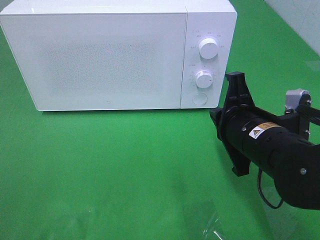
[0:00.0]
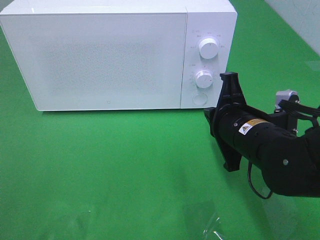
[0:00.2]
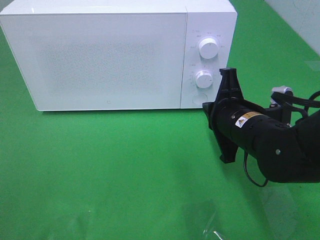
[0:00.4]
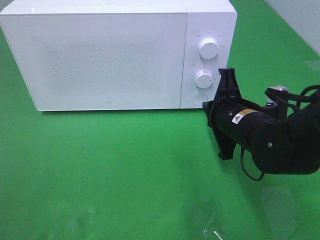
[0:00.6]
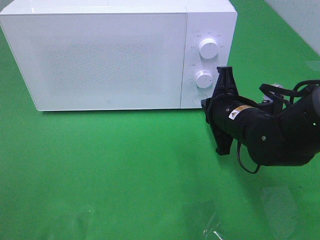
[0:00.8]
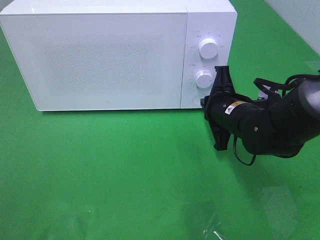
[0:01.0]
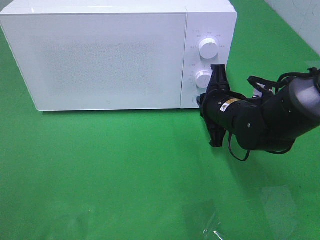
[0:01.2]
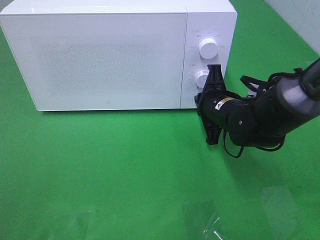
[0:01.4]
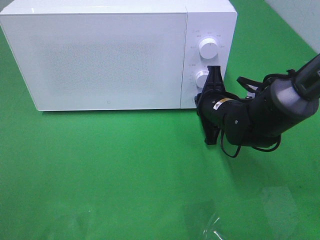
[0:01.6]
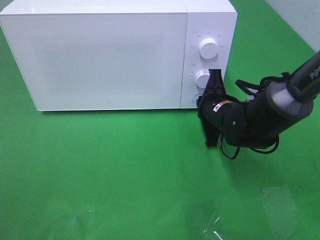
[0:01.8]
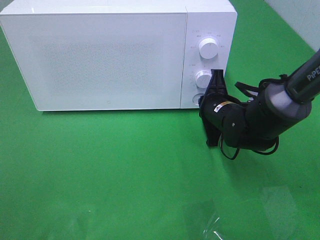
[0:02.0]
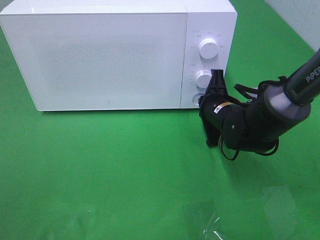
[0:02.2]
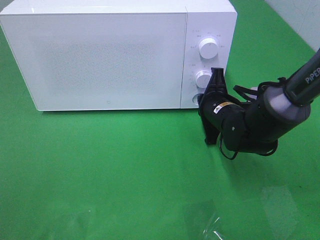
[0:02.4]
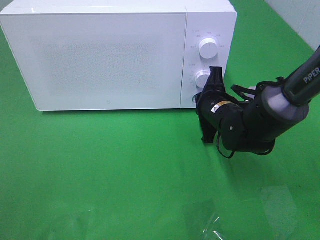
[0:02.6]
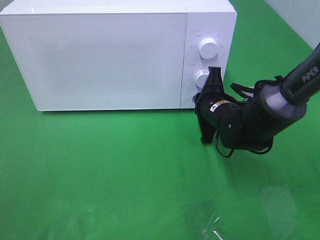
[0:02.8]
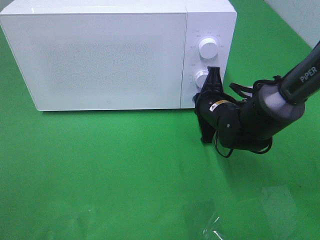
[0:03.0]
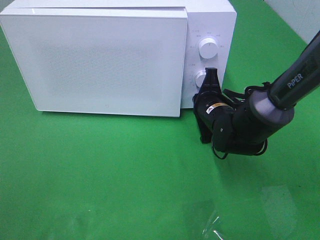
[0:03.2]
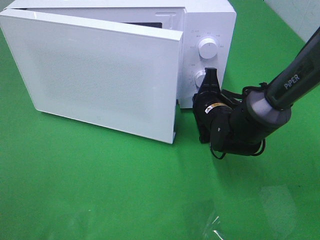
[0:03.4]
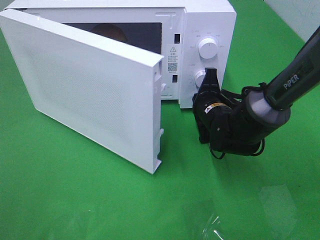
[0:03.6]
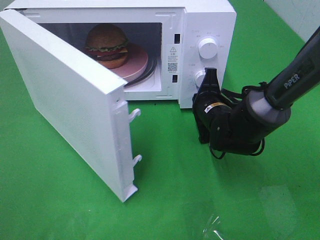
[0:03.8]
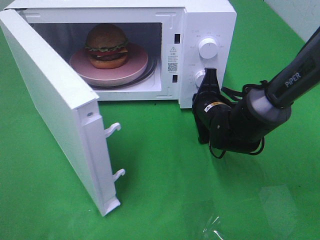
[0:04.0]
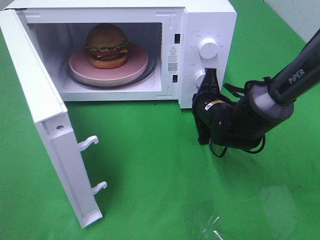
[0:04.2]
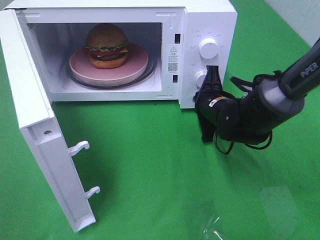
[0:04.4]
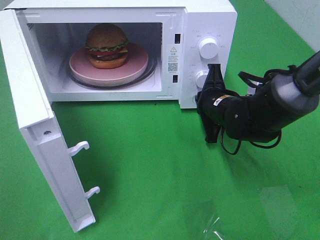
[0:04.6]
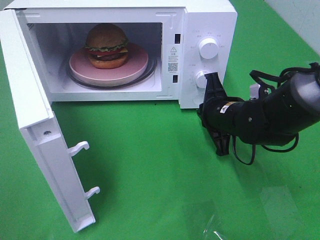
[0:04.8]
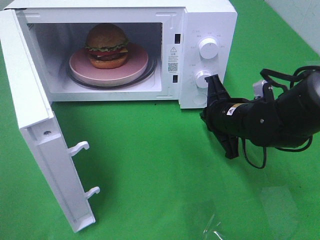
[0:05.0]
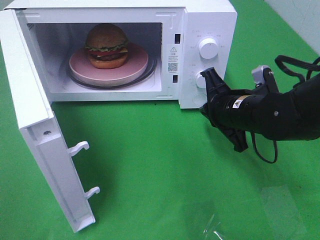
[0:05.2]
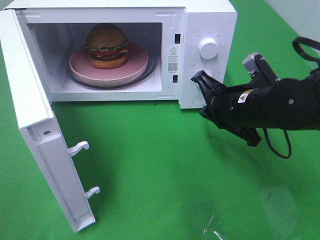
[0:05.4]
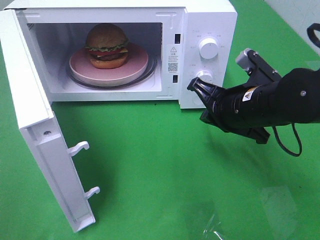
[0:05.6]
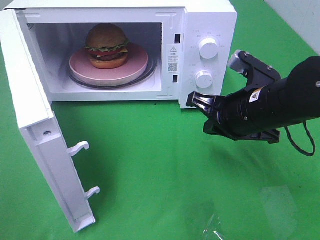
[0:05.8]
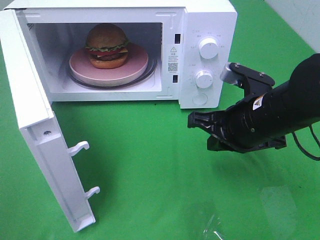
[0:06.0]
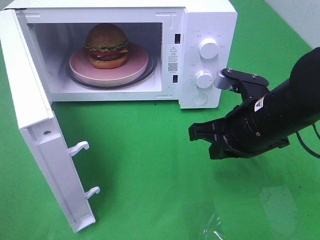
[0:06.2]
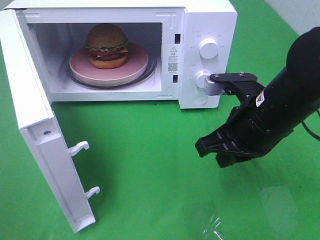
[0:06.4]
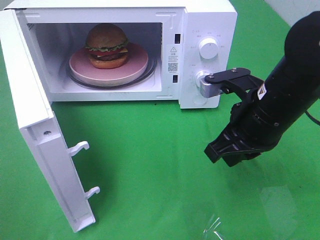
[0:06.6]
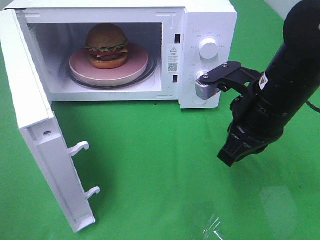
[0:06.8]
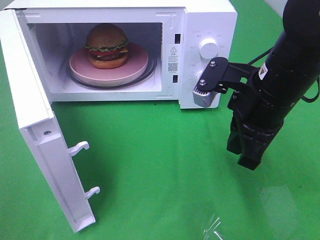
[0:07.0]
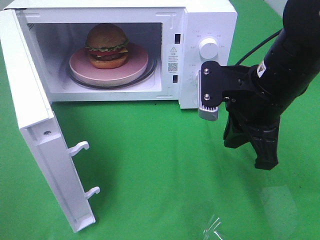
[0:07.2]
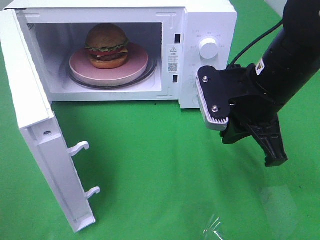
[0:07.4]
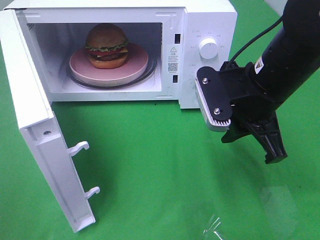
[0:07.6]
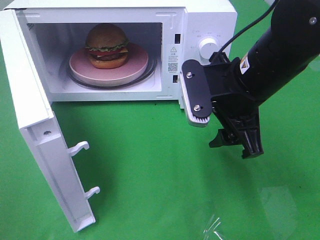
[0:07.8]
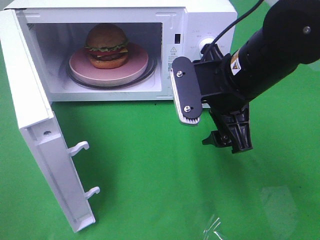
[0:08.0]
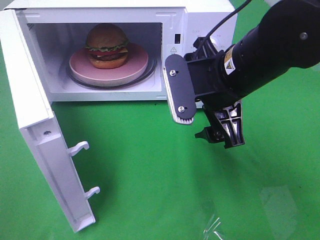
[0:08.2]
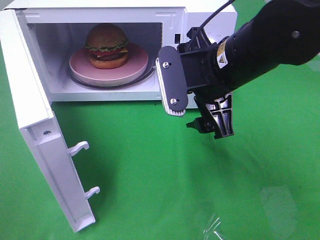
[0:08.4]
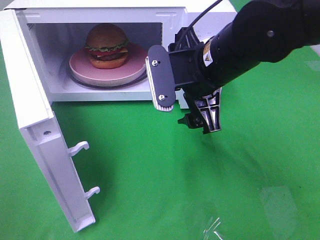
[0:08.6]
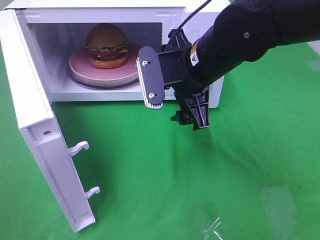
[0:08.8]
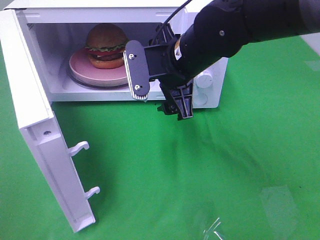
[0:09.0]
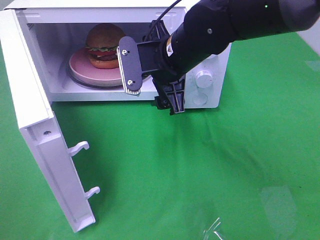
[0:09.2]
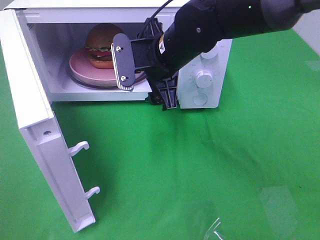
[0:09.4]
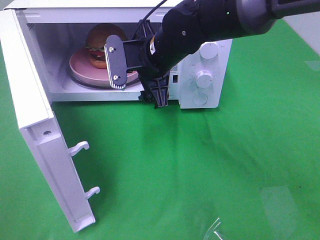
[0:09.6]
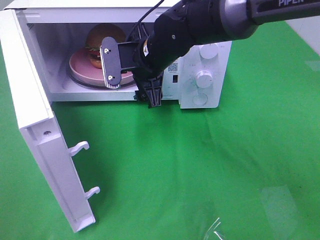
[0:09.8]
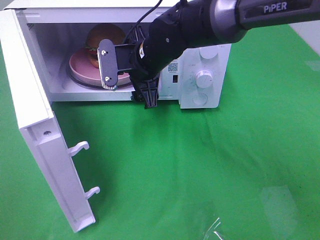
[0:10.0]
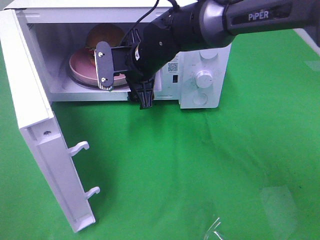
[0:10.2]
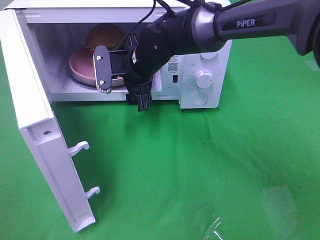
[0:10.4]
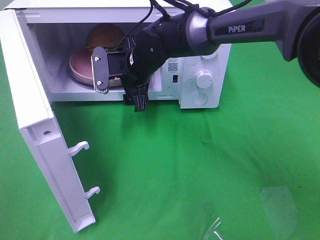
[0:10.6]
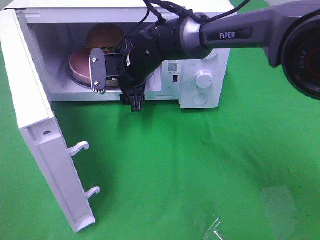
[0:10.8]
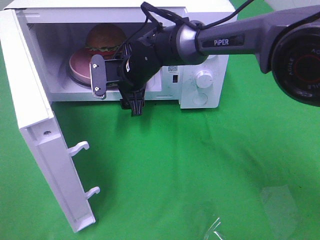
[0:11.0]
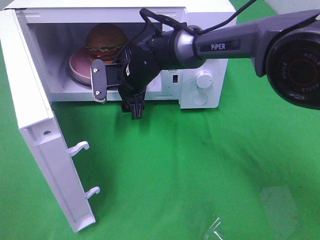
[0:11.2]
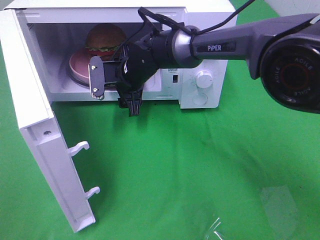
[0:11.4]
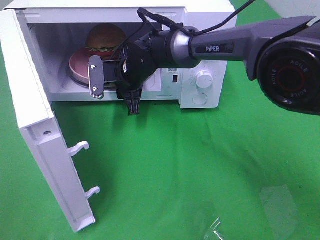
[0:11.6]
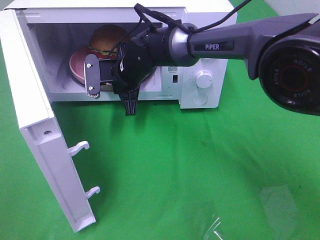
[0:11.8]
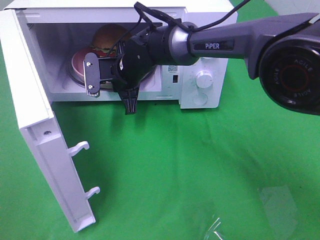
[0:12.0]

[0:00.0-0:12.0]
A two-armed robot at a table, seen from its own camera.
Task of the whole recording: Heat the burger.
Step, 0:00.0 to 0:04.8: Right hand: press the switch.
Step, 0:05.0 to 0:12.0: Right hand: grab the plate with the hamburger.
0:00.0 to 0:01.6: The right gripper travels forward and downward by some 15 cm.
0:01.6 to 0:03.0: The grippers move only a little.
0:04.4 to 0:06.0: The right gripper moves backward and upward, some 15 cm.
0:06.0 to 0:07.6: The right gripper goes about 5 cm upward.
0:07.6 to 0:09.0: The right gripper travels to the left and forward by some 10 cm, and opens up.
0:09.0 to 0:10.4: The right gripper heads forward, to the left and downward, covering roughly 10 cm.
0:10.4 to 0:12.0: The right gripper closes its fingers.

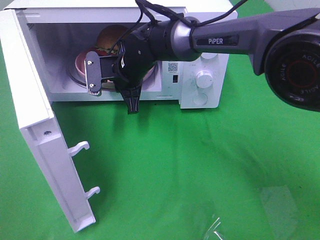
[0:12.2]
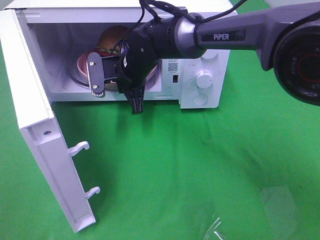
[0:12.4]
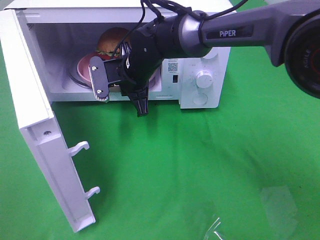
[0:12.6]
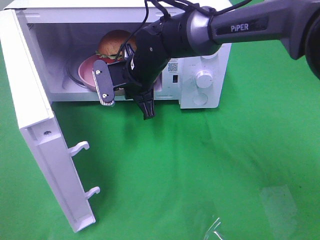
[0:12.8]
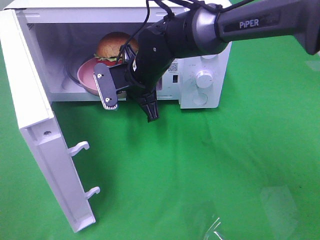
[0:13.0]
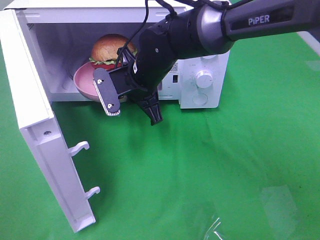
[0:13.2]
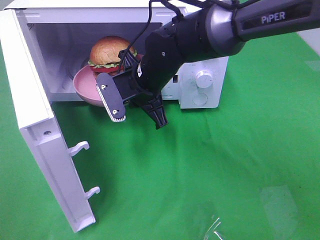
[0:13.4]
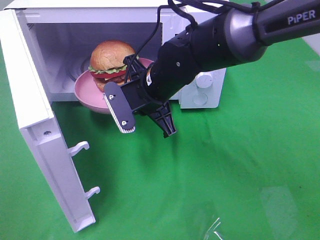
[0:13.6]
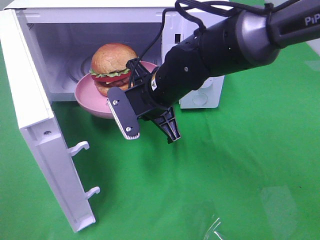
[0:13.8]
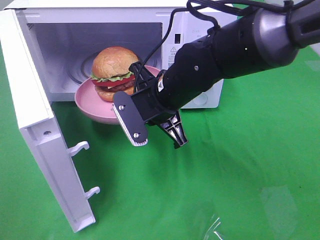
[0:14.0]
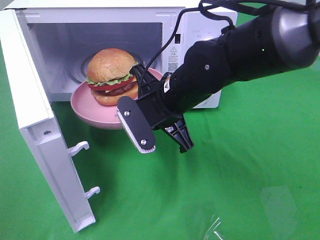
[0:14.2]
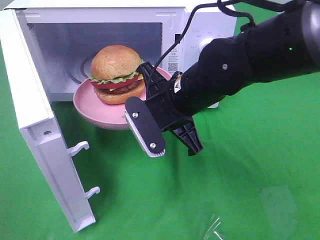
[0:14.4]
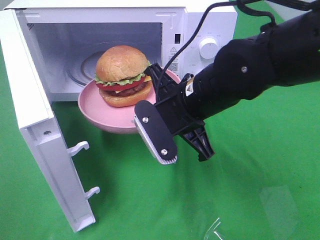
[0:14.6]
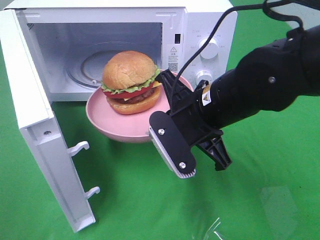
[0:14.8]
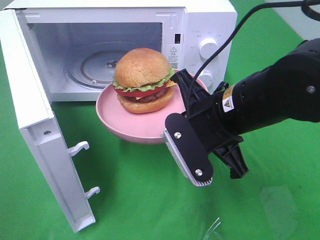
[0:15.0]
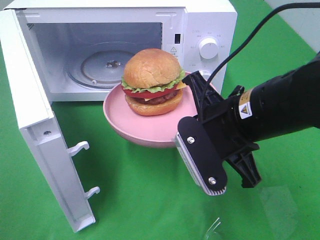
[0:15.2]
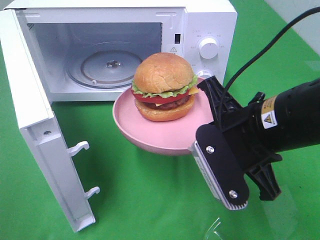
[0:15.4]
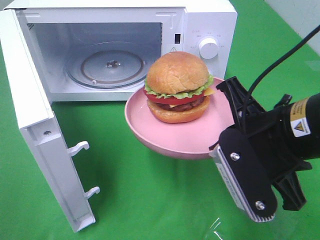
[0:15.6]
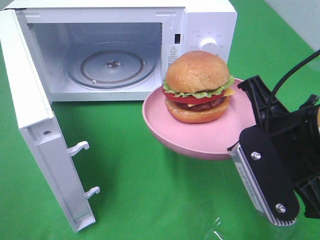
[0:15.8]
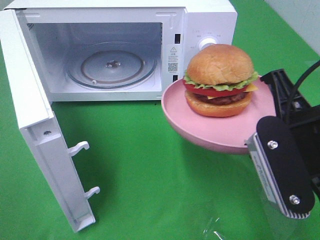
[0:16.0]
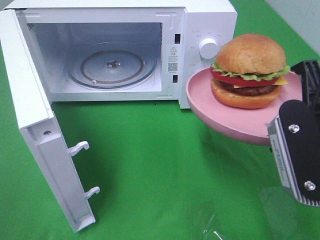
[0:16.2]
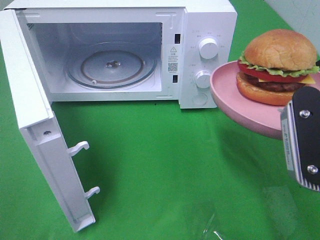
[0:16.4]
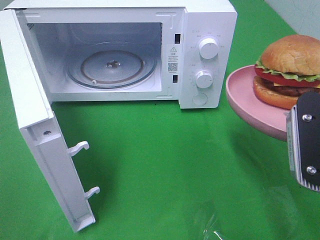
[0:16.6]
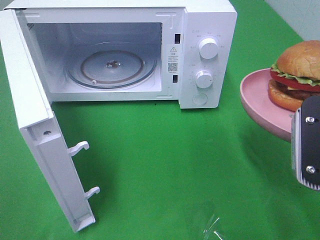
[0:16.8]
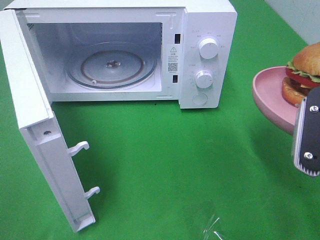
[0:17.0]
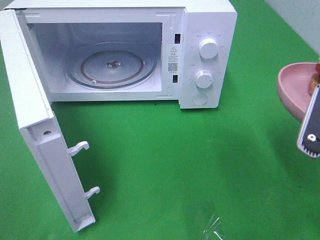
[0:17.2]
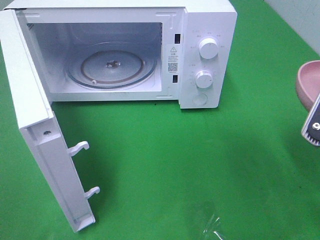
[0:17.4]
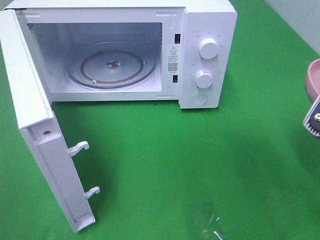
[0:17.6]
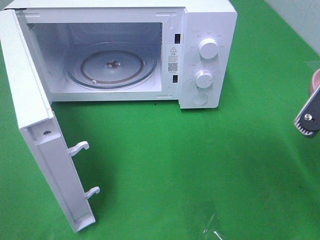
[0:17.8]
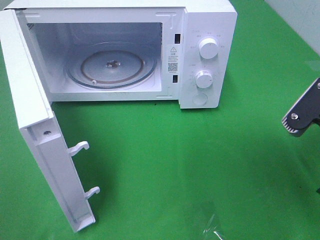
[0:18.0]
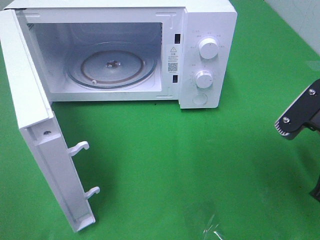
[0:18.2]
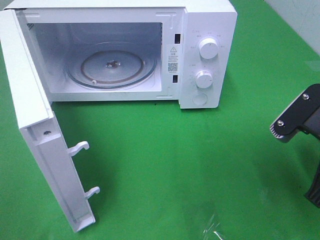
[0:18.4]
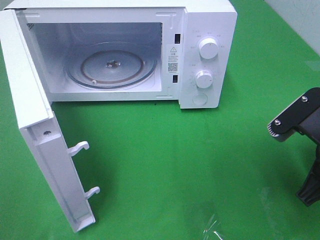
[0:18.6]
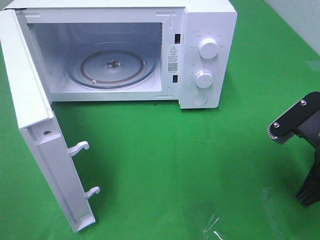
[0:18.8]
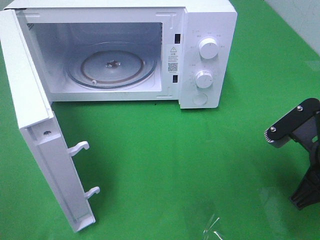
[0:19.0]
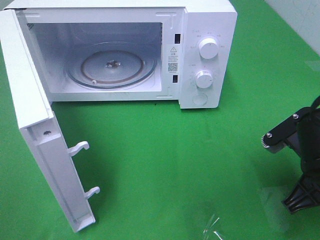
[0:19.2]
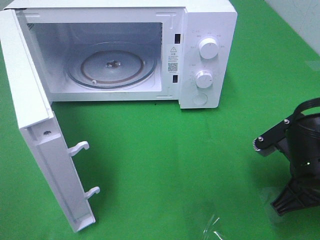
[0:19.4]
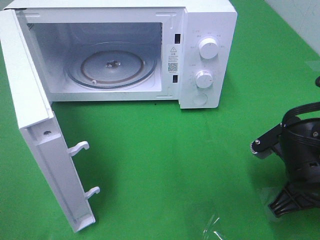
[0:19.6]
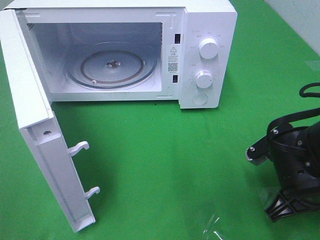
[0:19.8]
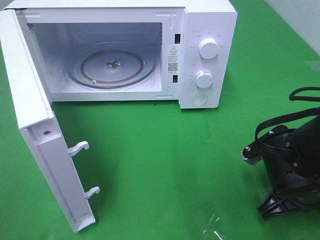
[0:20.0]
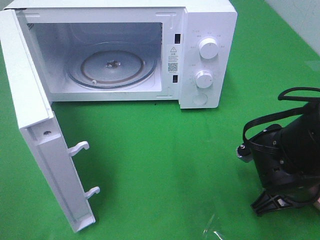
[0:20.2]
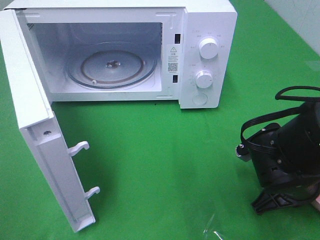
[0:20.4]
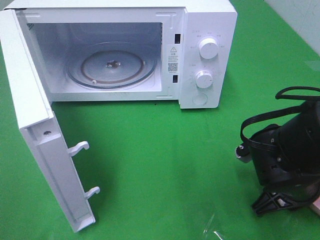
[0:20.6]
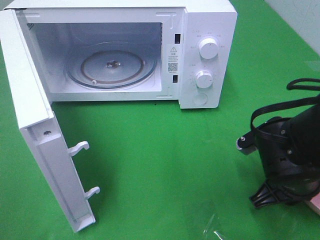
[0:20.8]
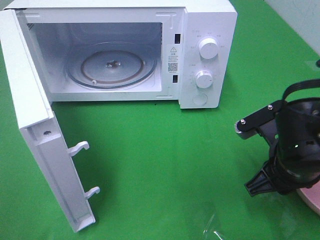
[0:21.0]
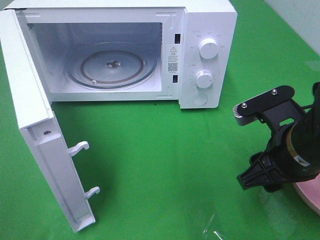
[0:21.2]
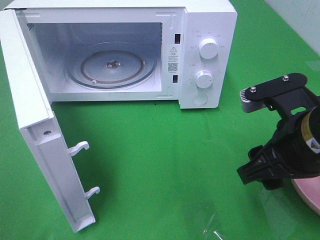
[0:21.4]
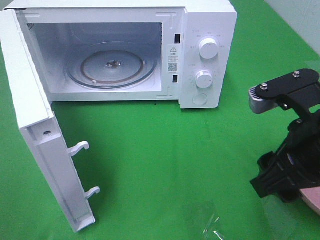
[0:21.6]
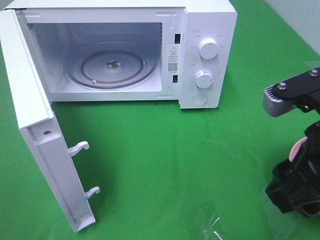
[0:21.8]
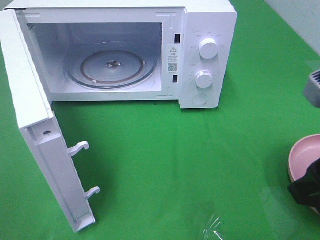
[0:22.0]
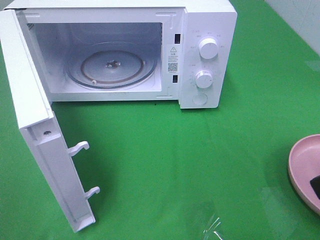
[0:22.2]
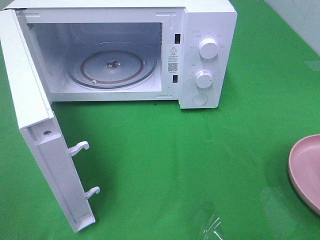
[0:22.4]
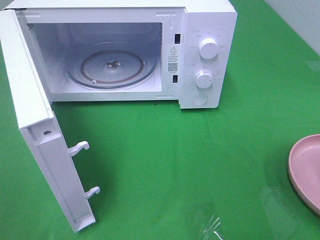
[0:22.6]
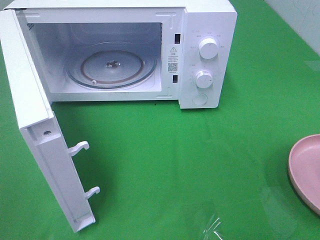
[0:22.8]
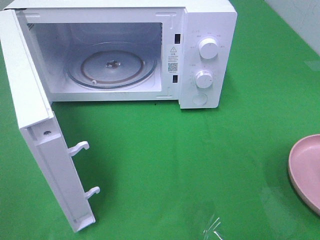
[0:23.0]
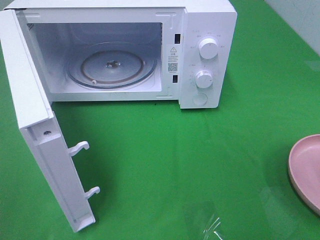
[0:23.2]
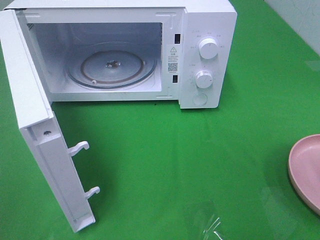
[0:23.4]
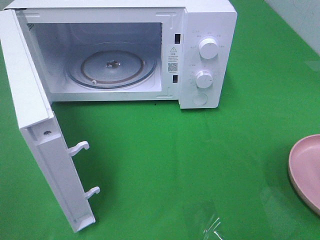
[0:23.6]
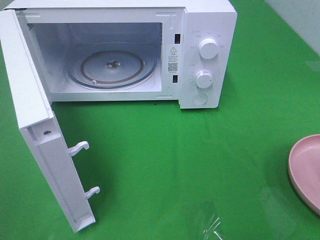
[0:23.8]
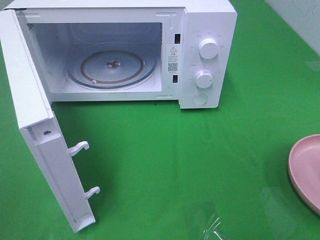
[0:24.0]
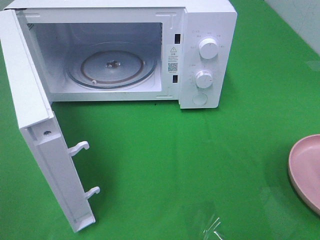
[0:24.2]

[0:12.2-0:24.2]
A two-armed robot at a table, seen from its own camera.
Task of the whole recording: Heat the burger.
Step, 0:12.2 to 0:21.8: Right hand: place the plate on the table.
0:12.2 to 0:13.8: The right gripper heads backward and to the right, covering roughly 10 cm.
0:13.8 to 0:15.2: The right gripper travels backward and to the right by roughly 15 cm.
0:15.2 to 0:16.6: The right gripper is displaced to the right and backward by some 10 cm.
0:16.6 to 0:18.2: The right gripper ends up about 5 cm from where it was.
0:18.2 to 0:19.8: The right gripper moves downward, roughly 10 cm.
0:19.8 to 0:21.2: The right gripper moves upward, approximately 5 cm, and opens its fingers.
0:21.2 to 0:22.6: The right gripper moves upward, backward and to the right, about 20 cm.
